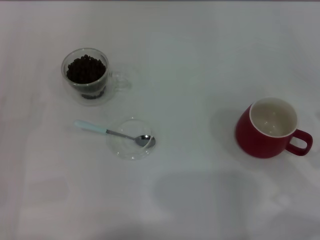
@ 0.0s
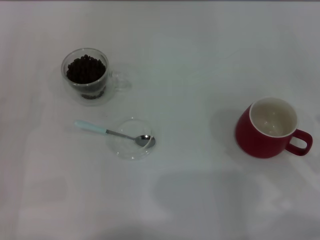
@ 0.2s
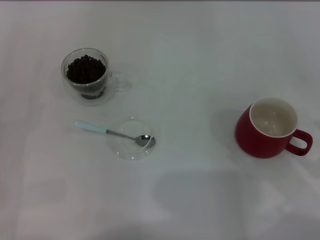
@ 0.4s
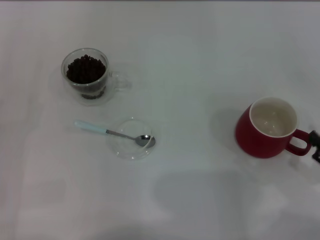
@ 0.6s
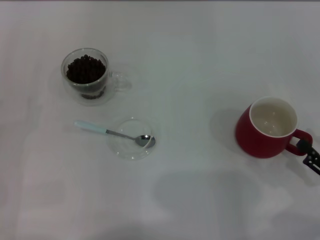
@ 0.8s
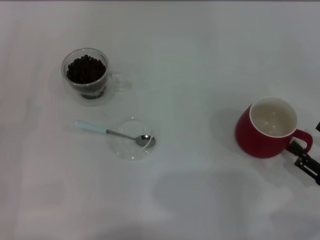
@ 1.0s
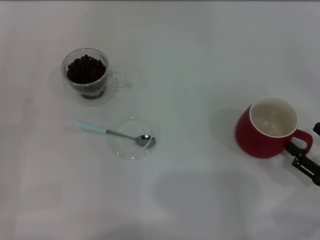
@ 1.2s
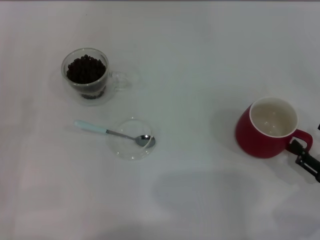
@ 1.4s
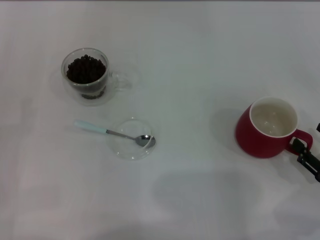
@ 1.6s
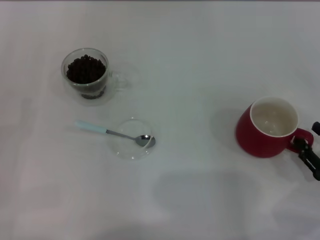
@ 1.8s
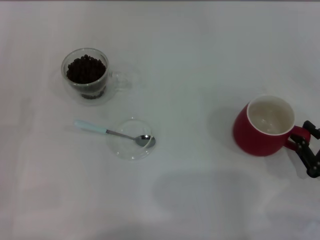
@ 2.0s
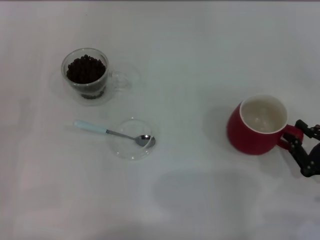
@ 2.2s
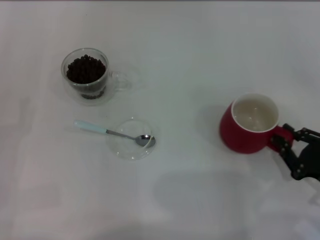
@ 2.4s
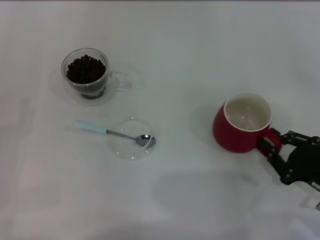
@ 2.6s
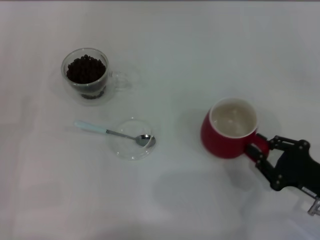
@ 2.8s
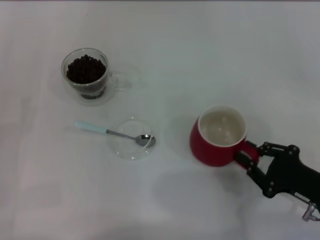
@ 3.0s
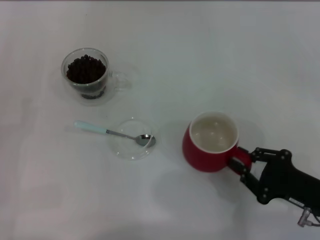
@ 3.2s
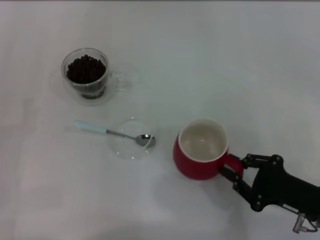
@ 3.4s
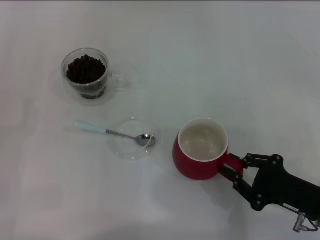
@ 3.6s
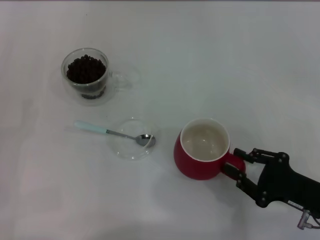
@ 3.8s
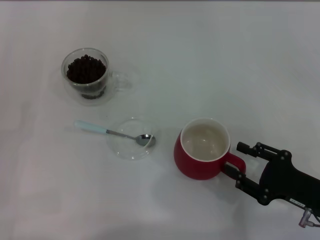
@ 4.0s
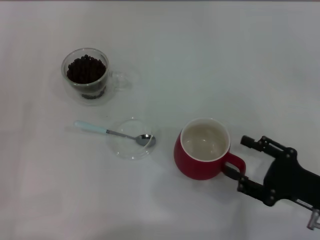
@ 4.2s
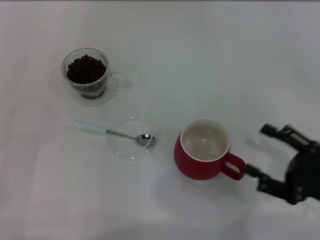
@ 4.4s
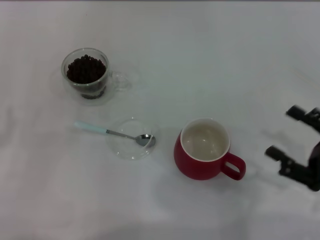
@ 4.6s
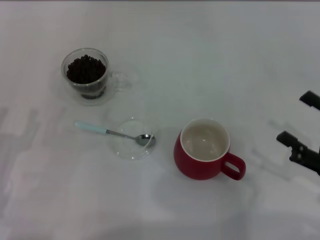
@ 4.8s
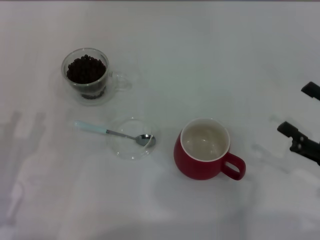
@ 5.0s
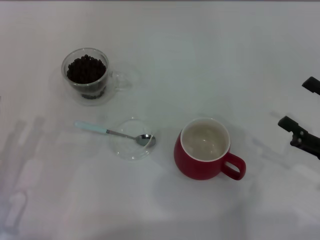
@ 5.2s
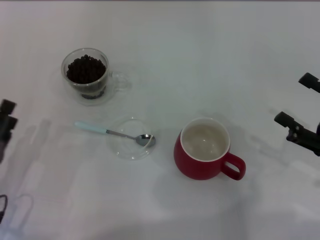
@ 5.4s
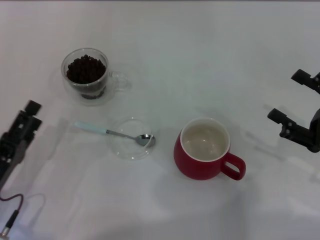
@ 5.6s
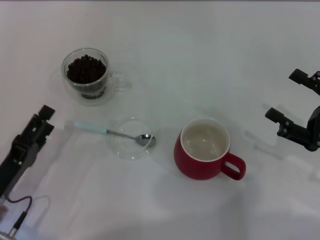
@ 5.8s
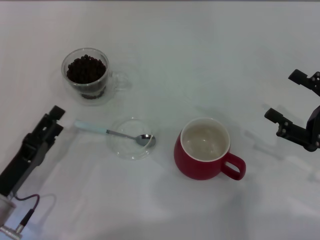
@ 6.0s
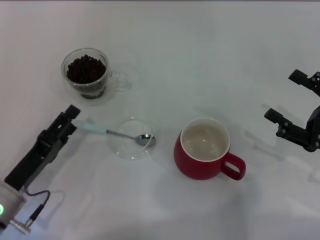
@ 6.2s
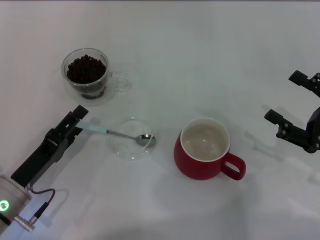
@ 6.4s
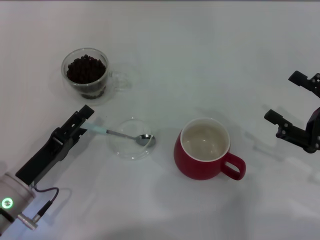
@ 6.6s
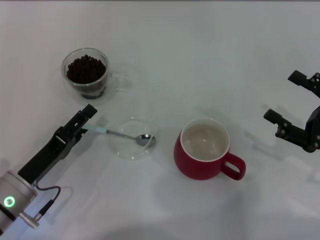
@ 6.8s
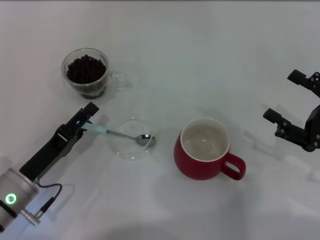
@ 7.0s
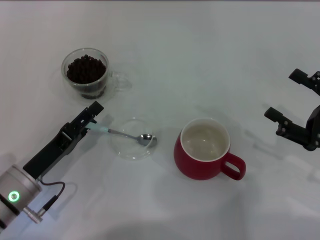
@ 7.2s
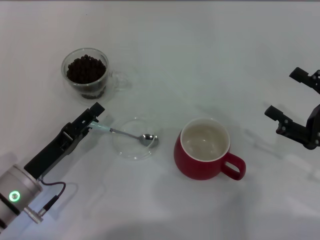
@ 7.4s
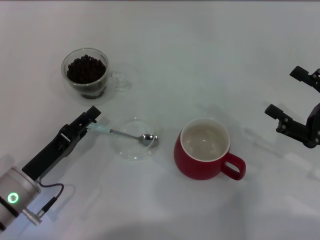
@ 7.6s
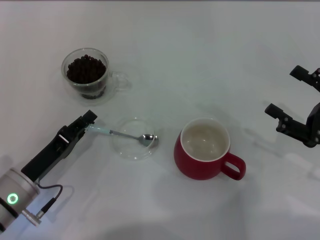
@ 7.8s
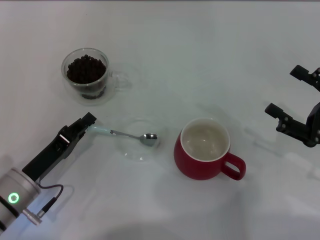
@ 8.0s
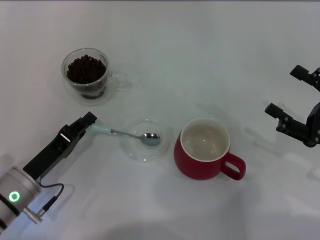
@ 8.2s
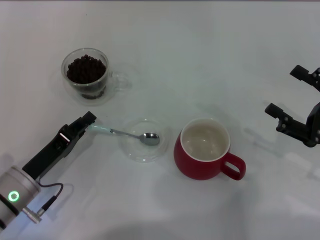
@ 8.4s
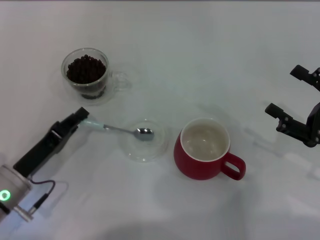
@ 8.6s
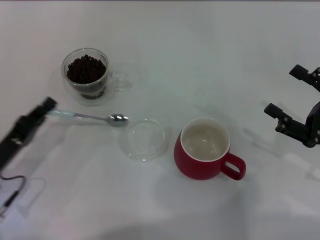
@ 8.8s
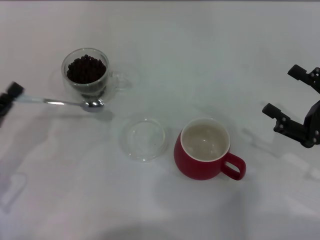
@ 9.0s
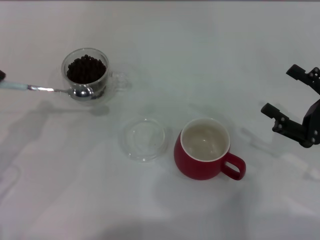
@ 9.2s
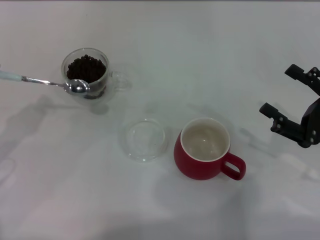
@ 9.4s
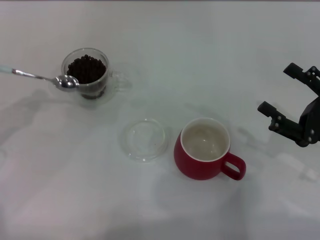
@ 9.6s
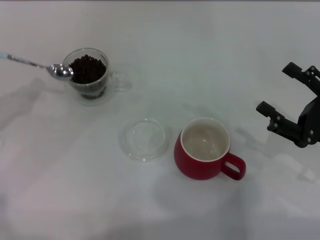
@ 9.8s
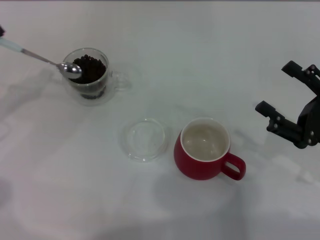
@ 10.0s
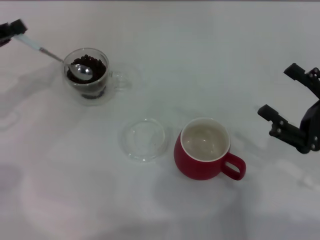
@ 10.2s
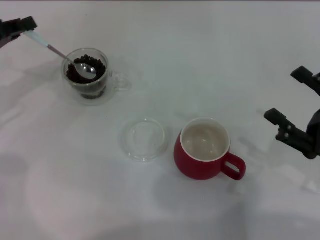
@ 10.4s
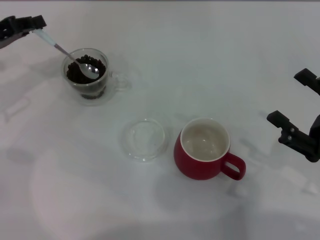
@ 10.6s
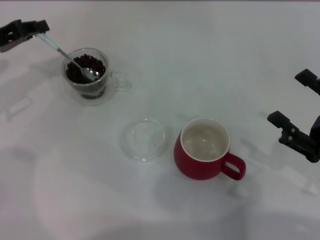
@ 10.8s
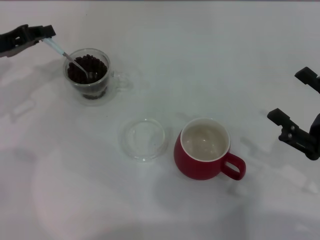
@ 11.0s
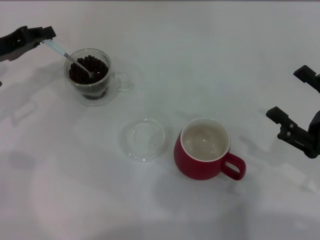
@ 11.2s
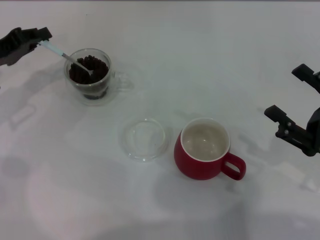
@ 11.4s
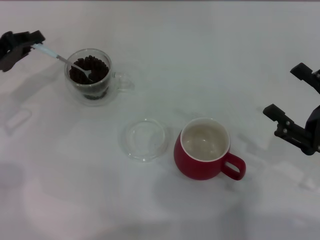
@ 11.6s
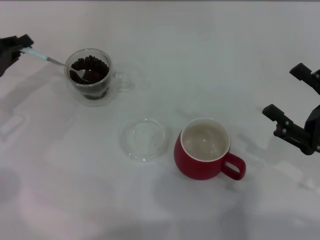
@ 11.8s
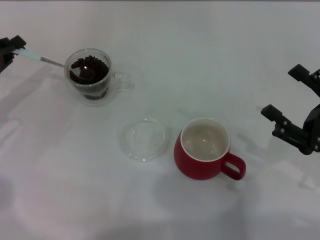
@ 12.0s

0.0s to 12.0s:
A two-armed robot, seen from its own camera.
Task of the whole recording: Use a blue spoon to take out the coffee beans from the glass and pour them into the red cup.
Step, 0.0s to 4.2s: Move the cup to the center of view with the left gripper.
Step, 4.6s to 8.6s: Pick up the spoon with the right gripper.
0.0s to 1.6s: The right gripper travels downward by about 5 cm.
1.6s to 3.0s: The right gripper goes about 5 cm to the left, and closes up.
3.0s to 4.4s: The right gripper opens.
4.4s to 6.0s: The right gripper ends up about 5 cm from where it was, while the left gripper moves to the right, some 10 cm.
6.0s to 7.6s: The grippers stay close to where they were, moving slightly.
7.6s to 9.0s: The left gripper is displaced to the left by roughly 5 cm, and closes.
9.0s to 10.4s: The left gripper moves forward and upward, approximately 20 cm.
10.4s to 12.0s: The left gripper shifts by some 5 cm.

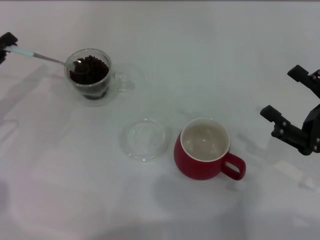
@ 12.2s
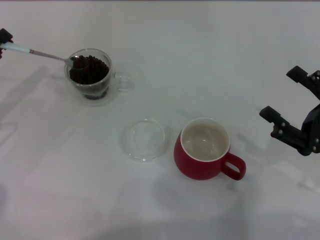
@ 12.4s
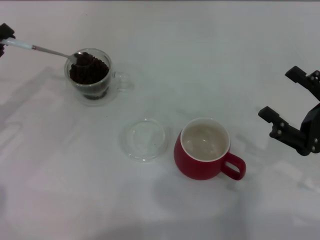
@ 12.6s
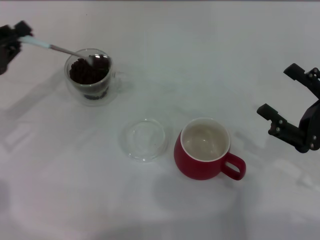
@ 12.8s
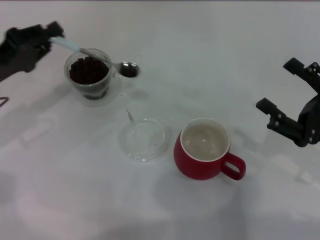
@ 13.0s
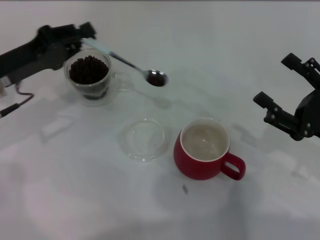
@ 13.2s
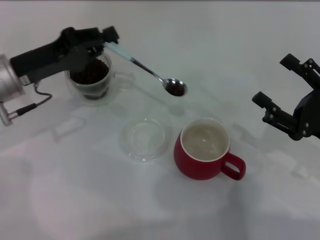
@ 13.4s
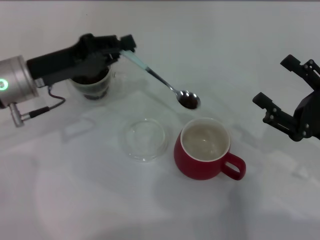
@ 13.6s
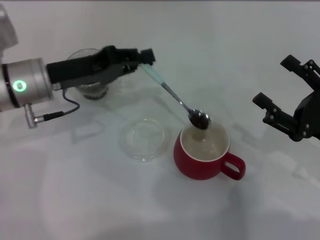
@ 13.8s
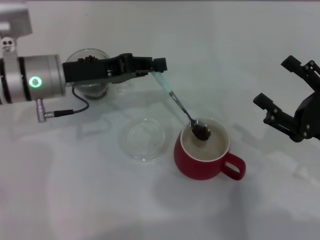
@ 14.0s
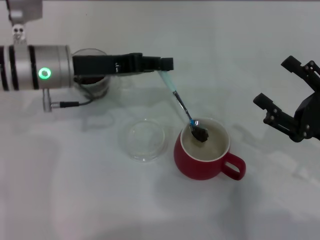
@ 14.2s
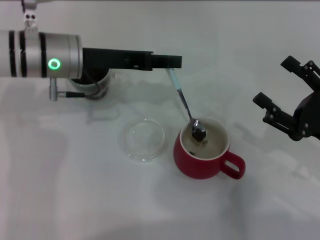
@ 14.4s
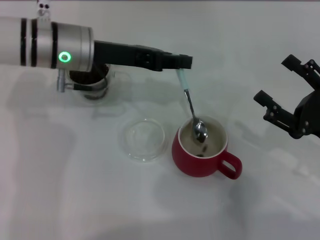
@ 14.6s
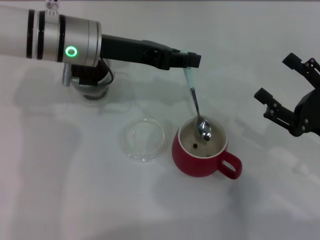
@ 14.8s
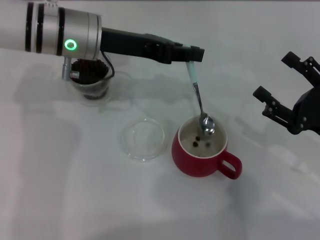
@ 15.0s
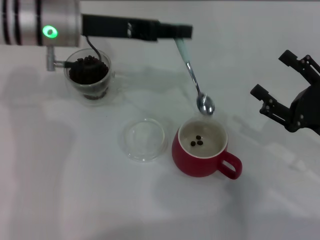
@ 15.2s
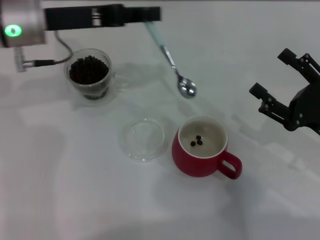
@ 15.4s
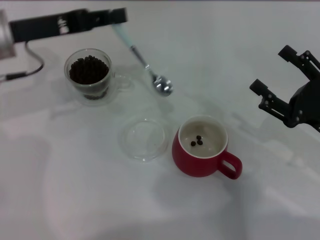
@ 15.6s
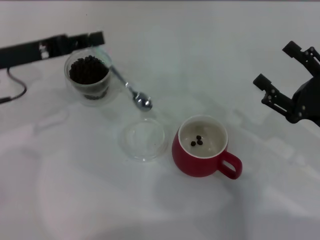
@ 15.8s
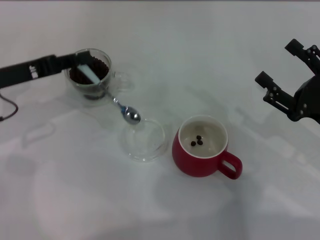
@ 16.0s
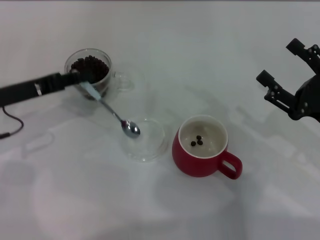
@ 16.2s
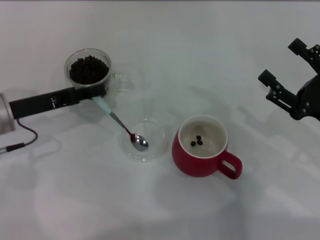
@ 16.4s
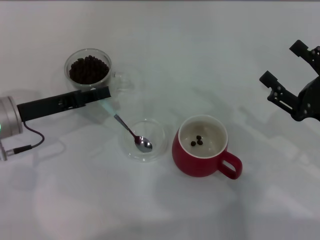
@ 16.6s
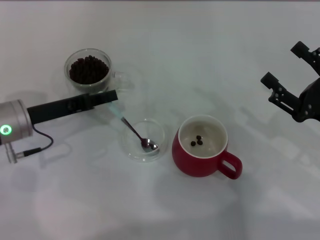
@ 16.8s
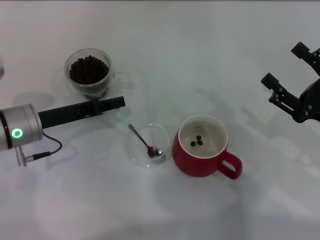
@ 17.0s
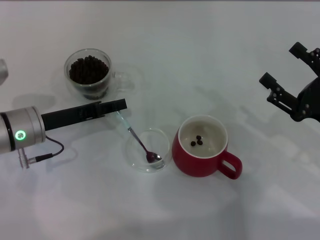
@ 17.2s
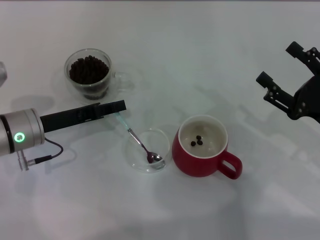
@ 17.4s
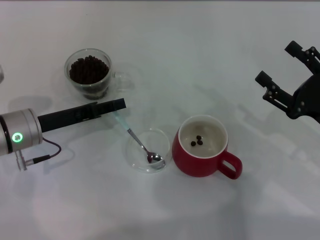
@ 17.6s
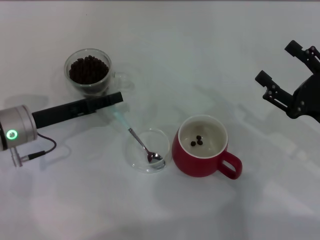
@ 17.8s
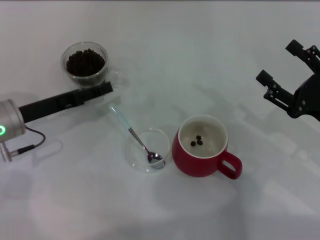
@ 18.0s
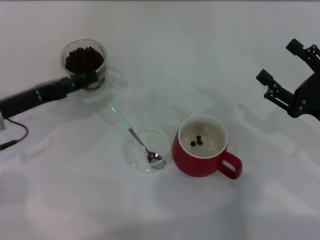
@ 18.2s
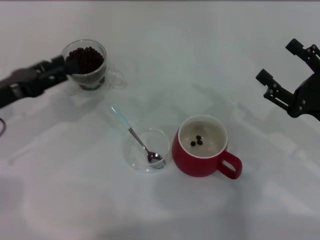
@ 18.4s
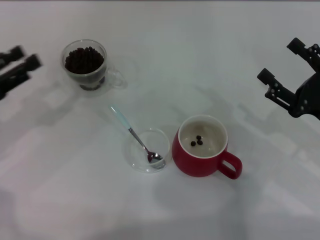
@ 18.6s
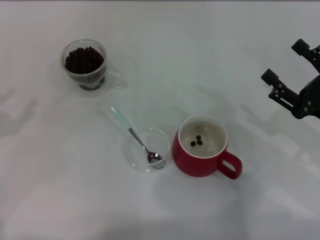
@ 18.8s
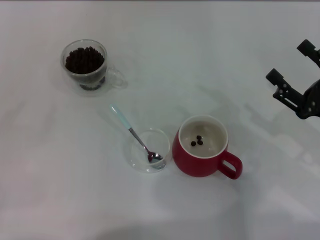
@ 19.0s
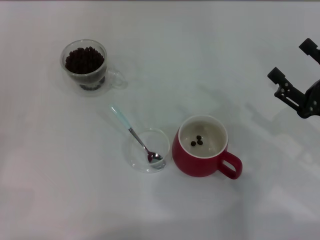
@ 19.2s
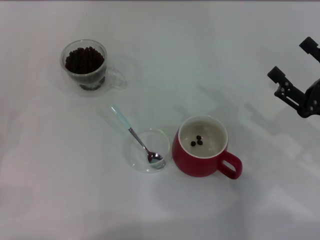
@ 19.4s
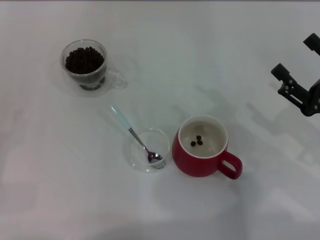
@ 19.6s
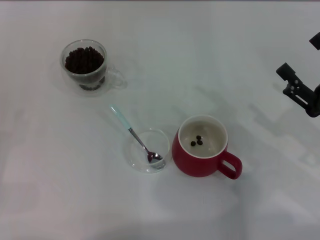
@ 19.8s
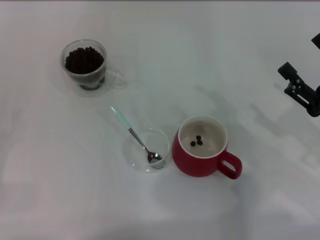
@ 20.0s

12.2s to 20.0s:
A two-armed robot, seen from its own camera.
Task of the whole recording: Use a blue spoon to take out the coffee beans from the glass and pour them into the red cup.
12.2s to 13.8s: The left gripper moves to the right, some 15 cm.
13.8s to 15.4s: The left gripper moves upward, about 5 cm.
15.4s to 16.8s: The left gripper travels downward and backward by some 15 cm.
16.8s to 18.4s: The left gripper moves to the left, about 5 cm, and opens up.
18.4s to 20.0s: The left gripper travels backward and to the left by roughly 15 cm.
